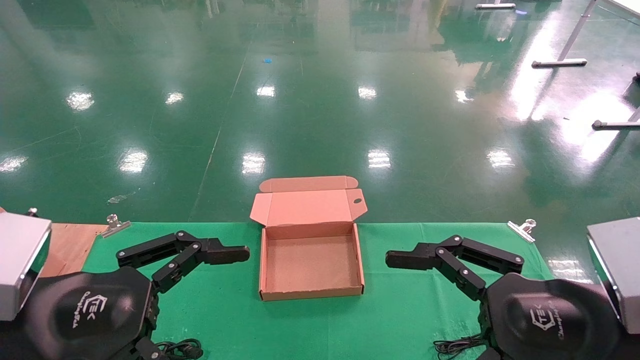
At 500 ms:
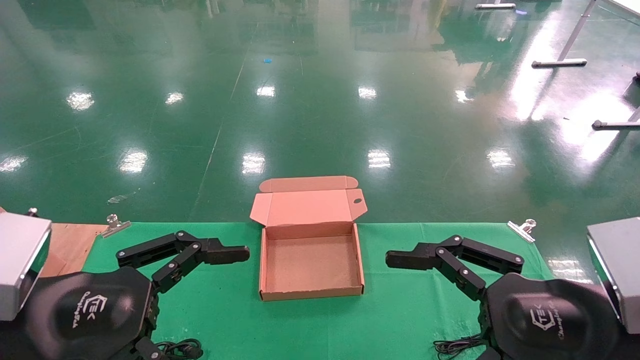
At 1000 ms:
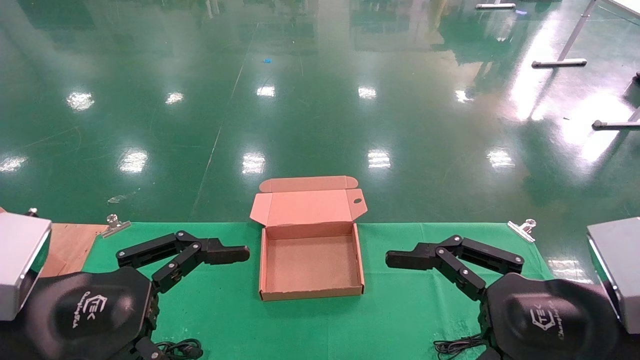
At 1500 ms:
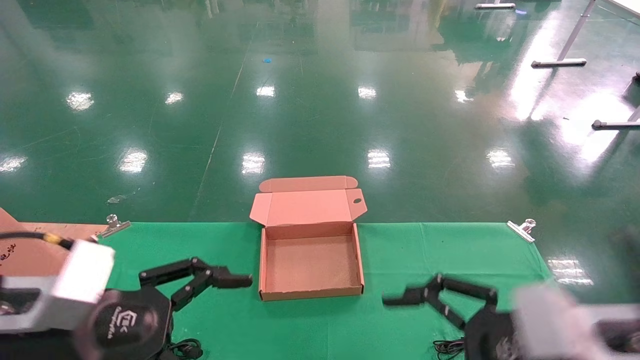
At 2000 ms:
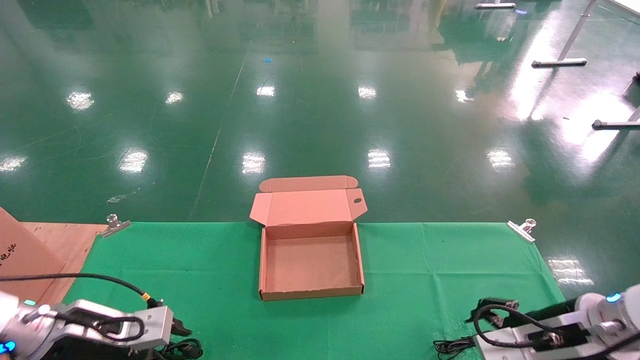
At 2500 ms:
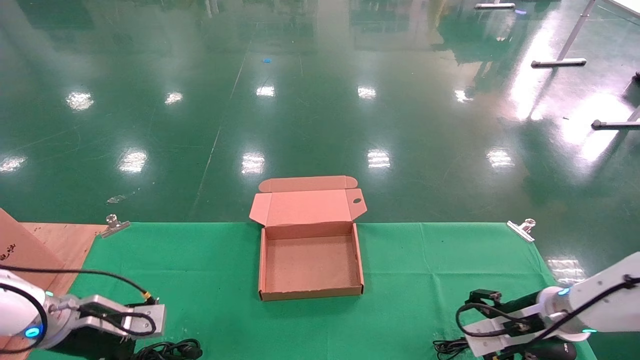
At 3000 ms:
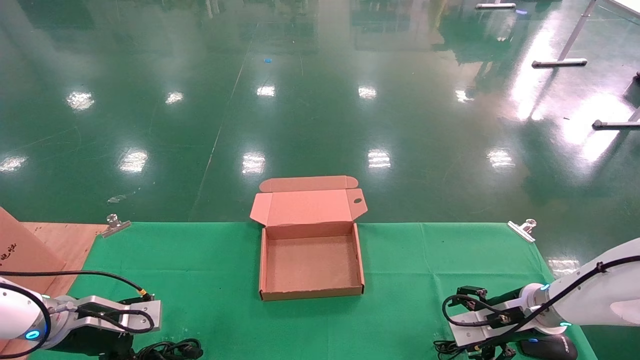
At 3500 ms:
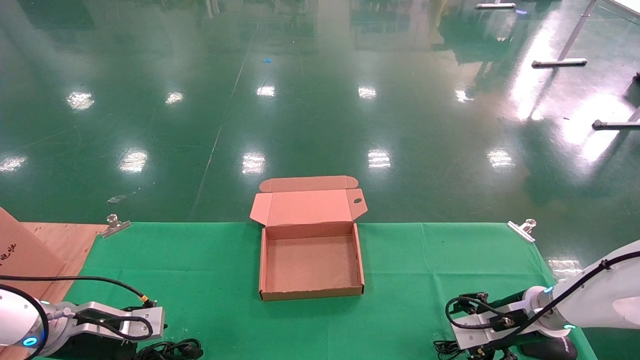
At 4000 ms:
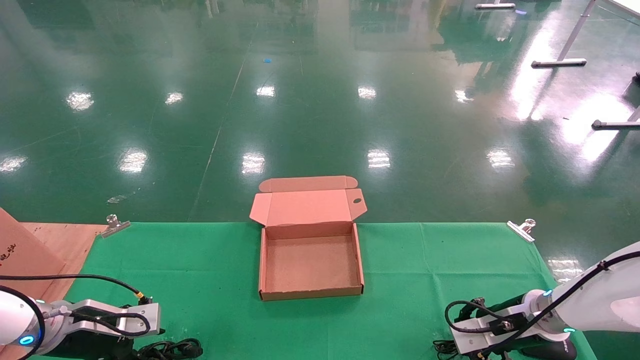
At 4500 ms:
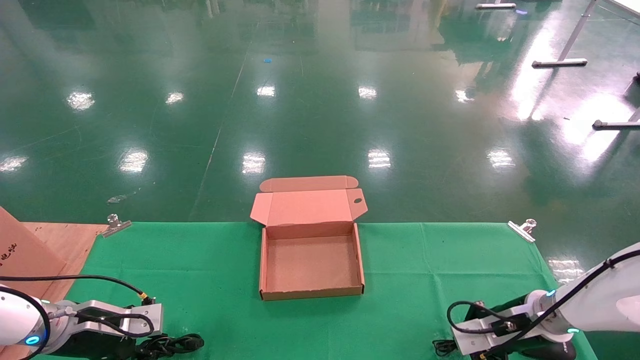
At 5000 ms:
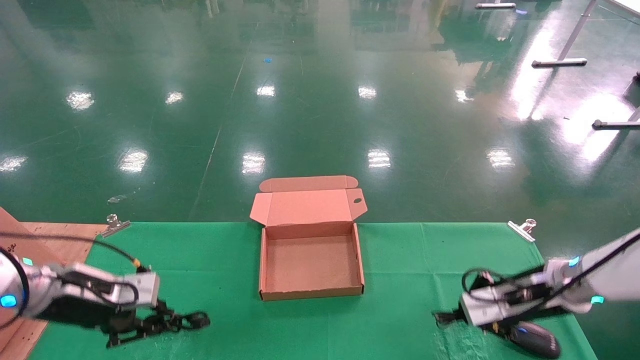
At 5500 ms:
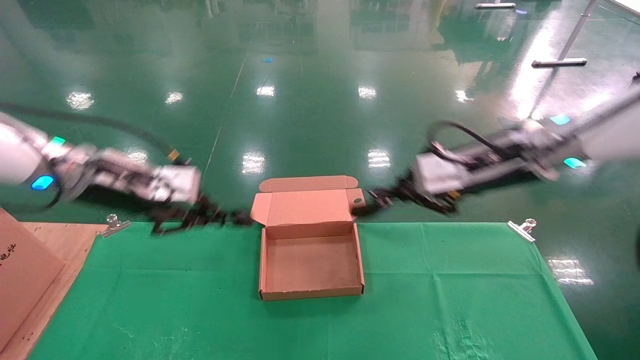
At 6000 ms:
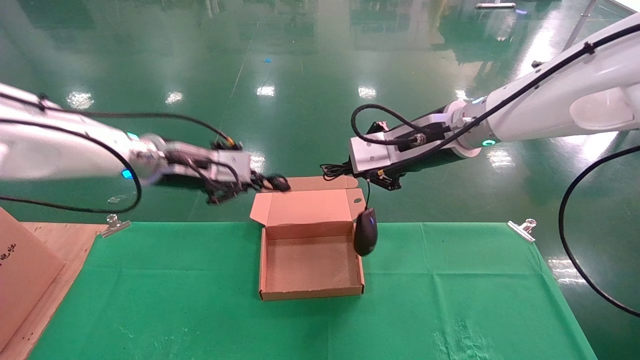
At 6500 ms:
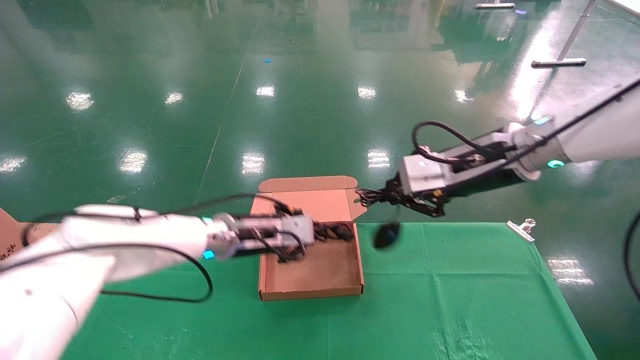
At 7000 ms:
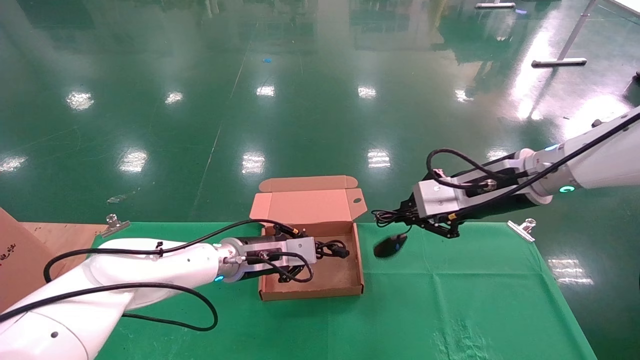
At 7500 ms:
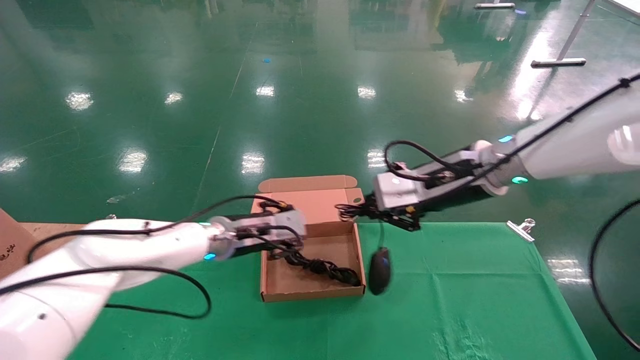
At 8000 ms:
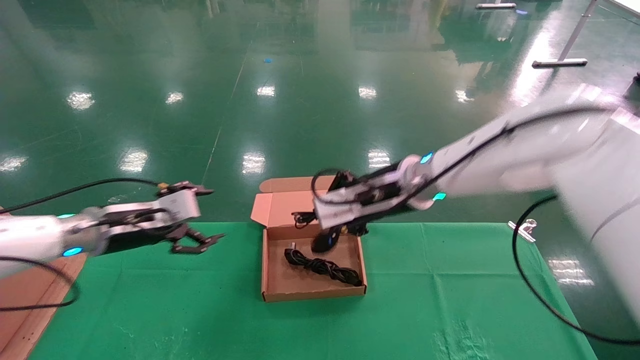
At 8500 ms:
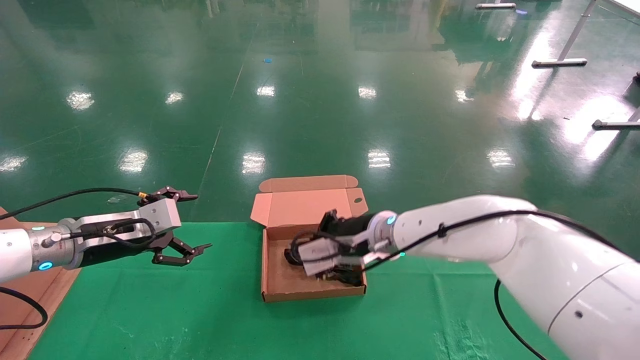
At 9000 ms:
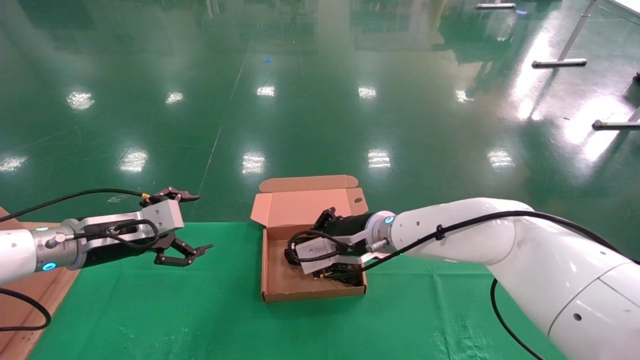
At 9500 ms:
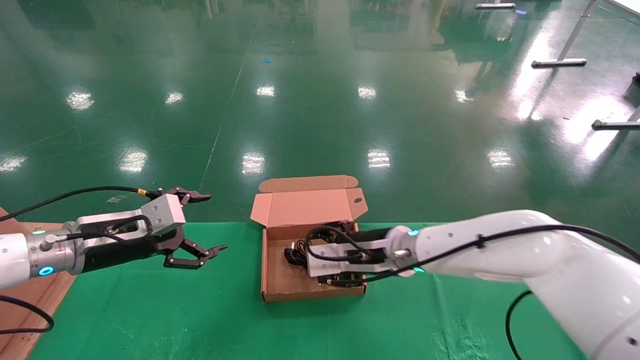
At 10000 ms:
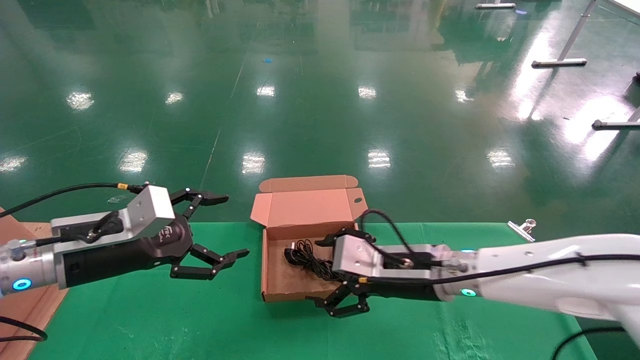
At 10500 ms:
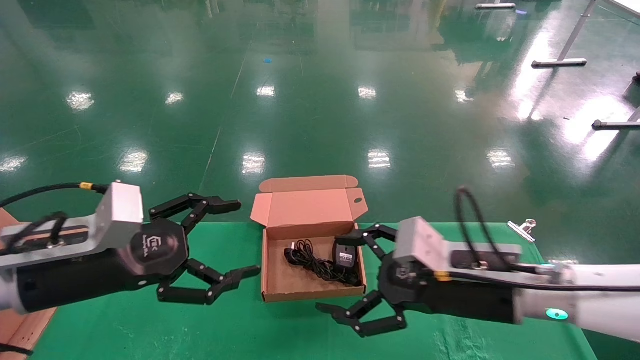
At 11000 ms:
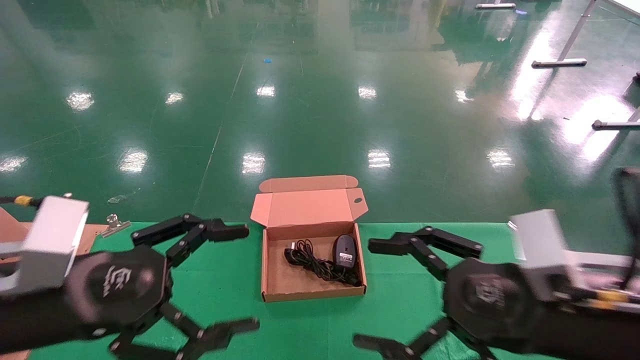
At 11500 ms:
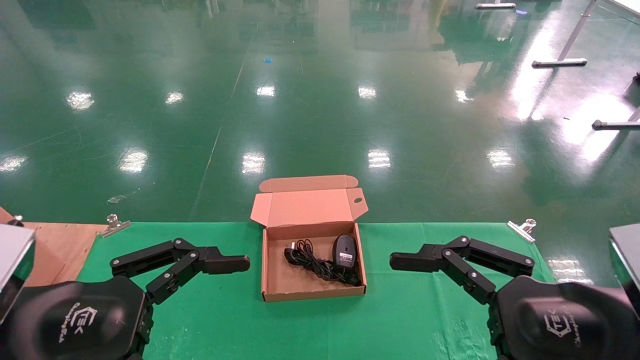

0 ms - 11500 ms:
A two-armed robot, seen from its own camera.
Step, 1500 ms - 5500 ms: Grab and lift both the mouse and power cord from the accessory packaging area at the same time.
Step, 6000 ms - 10500 ms: Place the mouse and power cord into the box.
0 ms - 2000 ms: The left gripper travels forward, downward and to the left by about 20 cm. Meanwhile the right gripper travels forward and downward by some 15 cm.
2000 ms - 4000 ms: The right gripper goes about 10 cm forward and downward, and closes; the left gripper goes approximately 5 cm to the left and forward, and closes up.
4000 ms - 6000 ms: The left gripper heads upward and to the right, covering approximately 25 cm, and closes, while the right gripper goes about 30 cm upward and to the left, and closes.
6000 ms - 7500 ms: The left gripper heads downward, covering some 10 cm.
7500 ms - 9500 ms: The left gripper heads to the left and backward, covering roughly 15 cm, and opens its fingers. Meanwhile the right gripper is displaced downward and to the left by some 15 cm, and opens its fingers.
9500 ms - 11500 ms: The right gripper heads backward and to the right, covering approximately 30 cm, and opens. The left gripper travels backward by about 20 cm.
